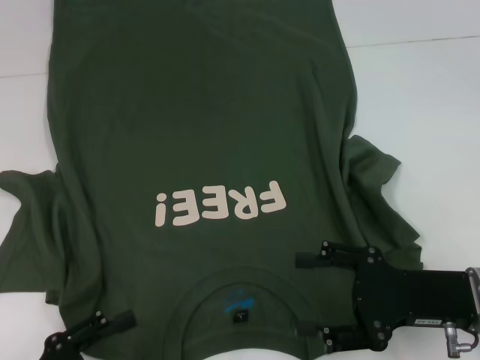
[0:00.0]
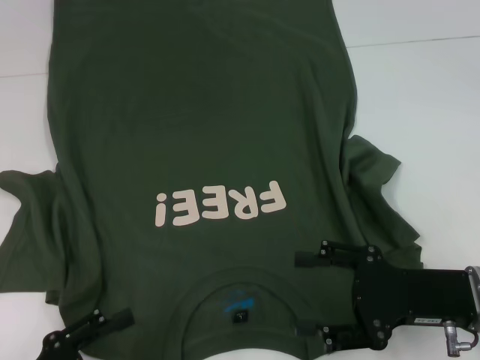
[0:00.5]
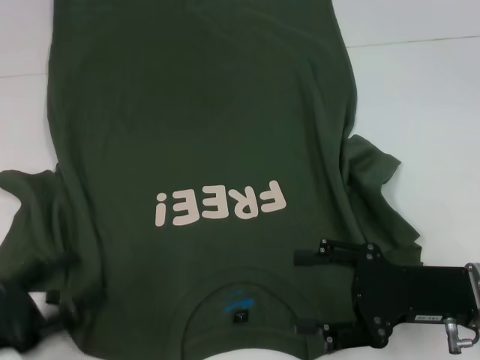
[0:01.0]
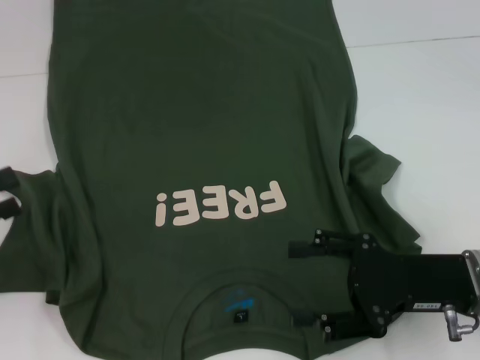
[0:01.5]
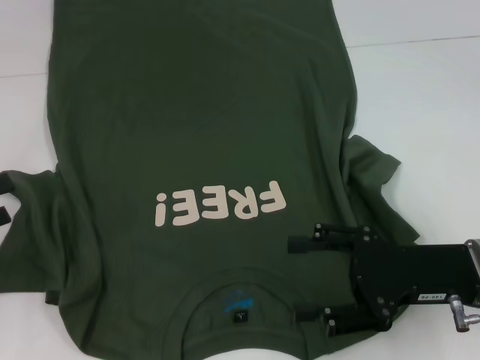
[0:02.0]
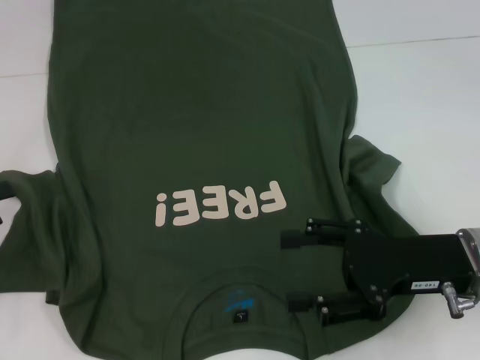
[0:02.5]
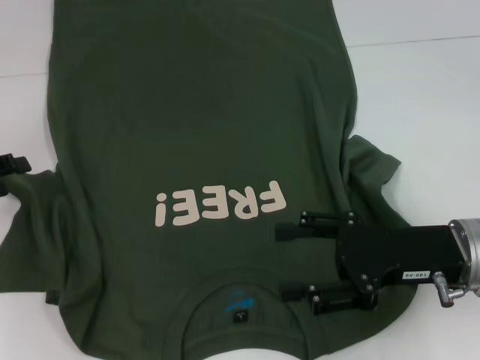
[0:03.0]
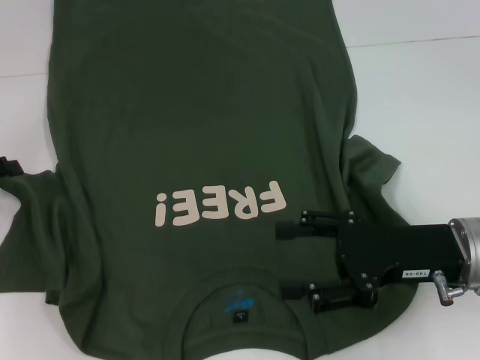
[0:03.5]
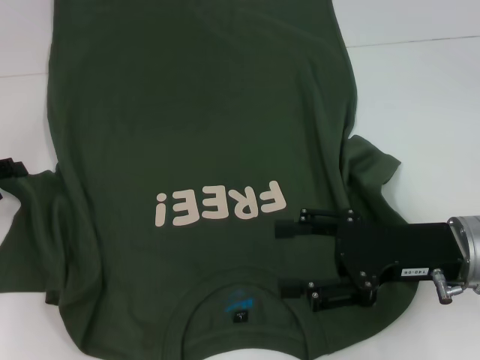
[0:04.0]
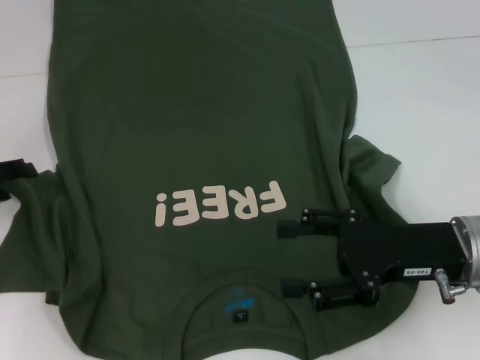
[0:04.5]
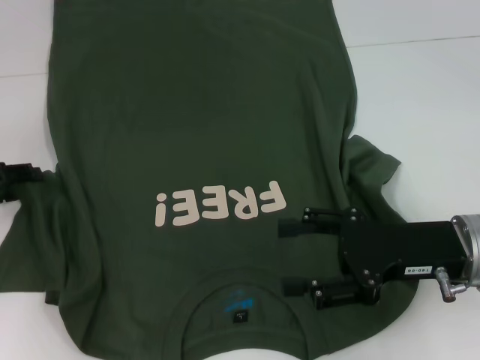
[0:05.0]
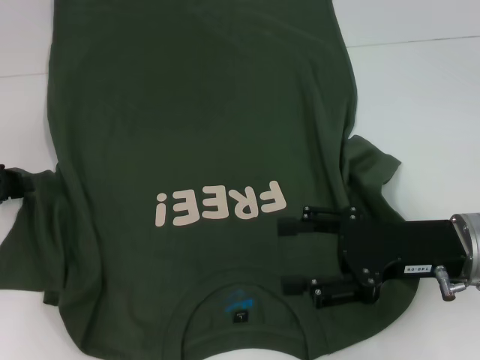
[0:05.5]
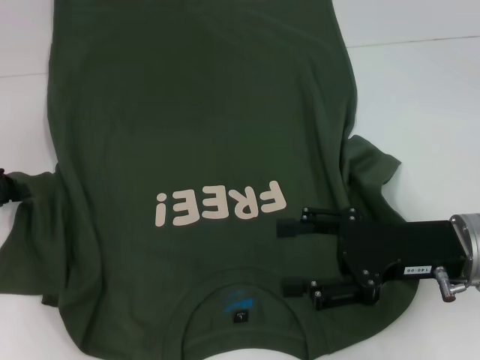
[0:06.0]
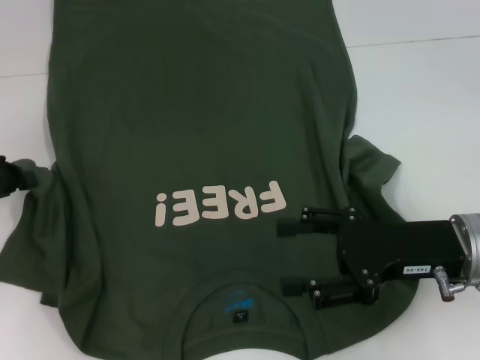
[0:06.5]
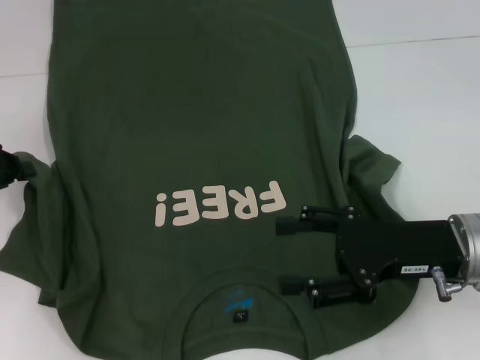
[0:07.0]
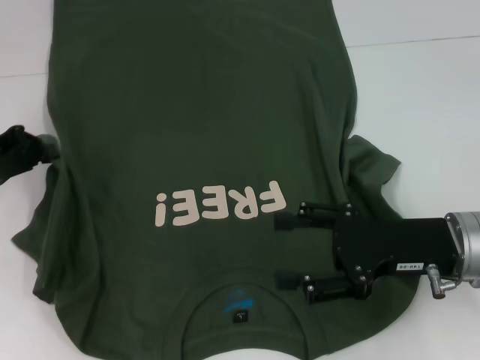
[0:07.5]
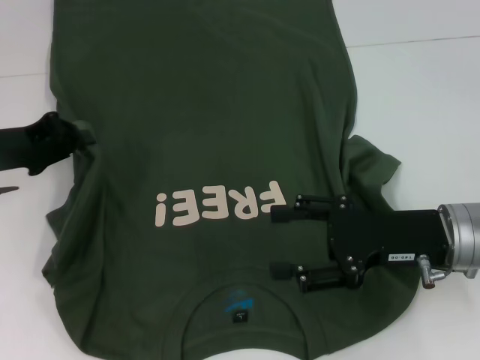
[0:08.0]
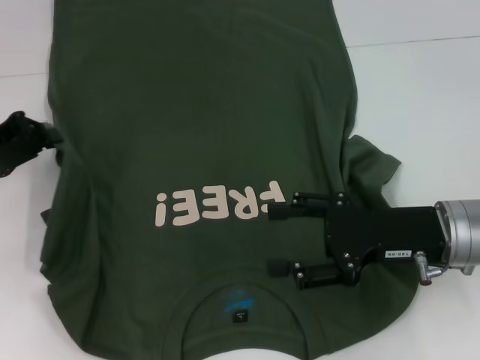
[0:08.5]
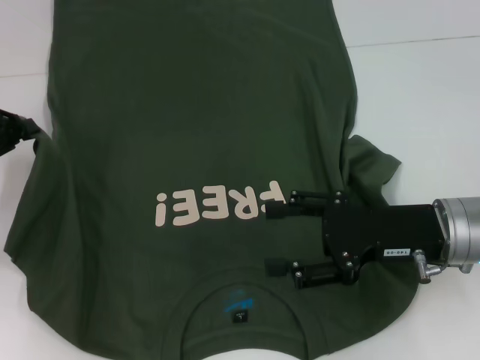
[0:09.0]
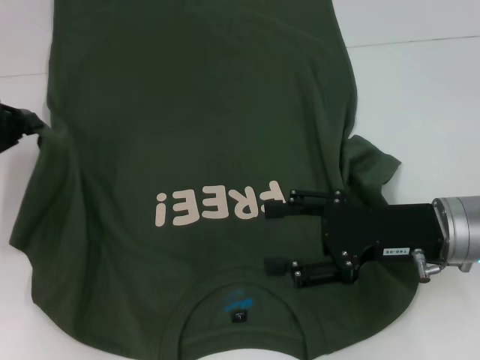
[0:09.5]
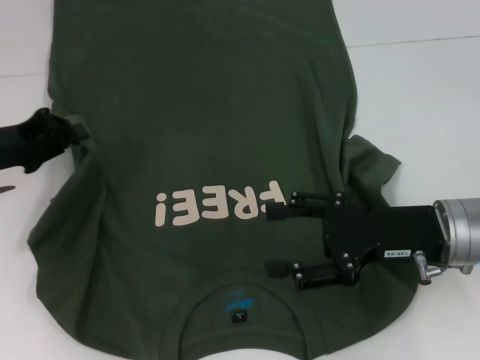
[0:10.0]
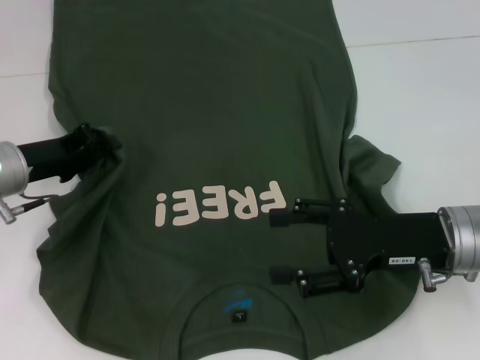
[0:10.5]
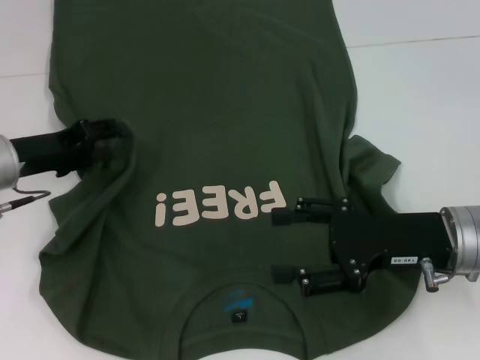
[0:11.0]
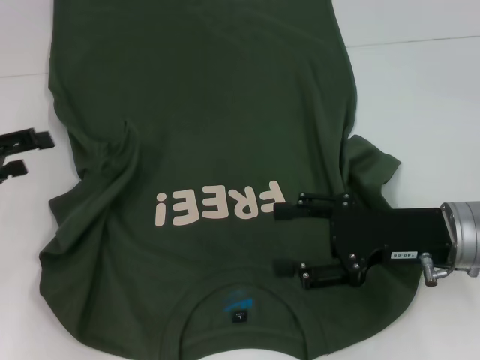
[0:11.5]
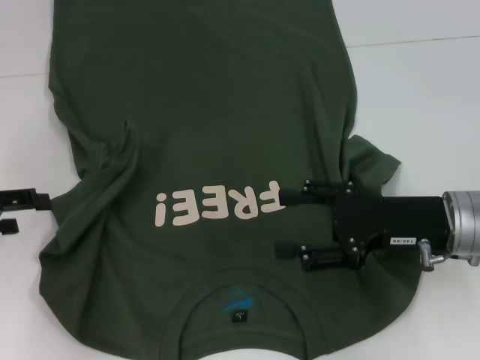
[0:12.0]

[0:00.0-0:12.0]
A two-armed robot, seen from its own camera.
0:00.0 to 0:02.0: The left gripper is displaced forward, to the left and upward by approximately 20 cm.
0:02.0 to 0:04.0: The left gripper moves forward, approximately 10 cm.
0:04.0 to 0:06.0: The left gripper closes.
0:06.0 to 0:08.0: The left gripper travels to the right by roughly 5 cm.
0:08.0 to 0:10.0: The grippers move only a little.
0:10.0 to 0:12.0: The left gripper heads to the left and backward, covering approximately 5 cm, and opens up.

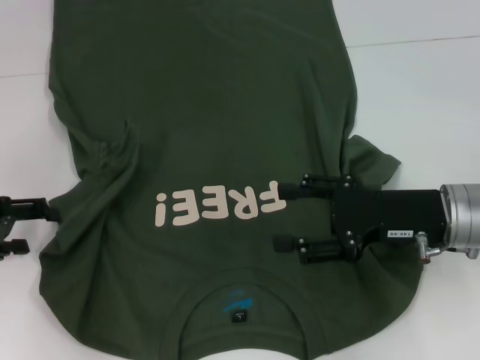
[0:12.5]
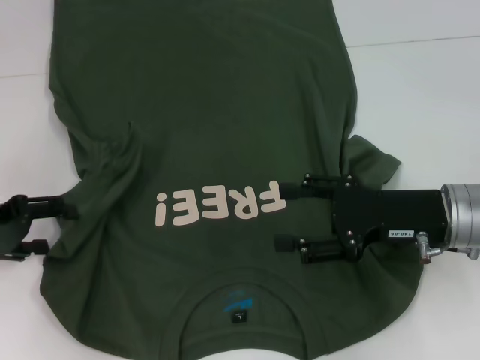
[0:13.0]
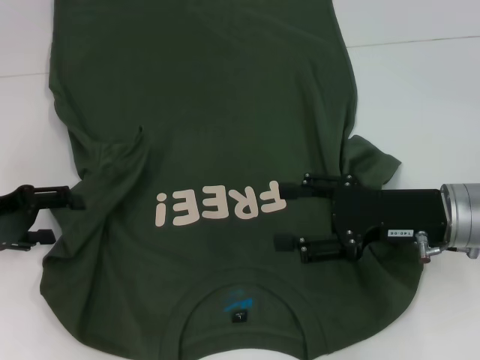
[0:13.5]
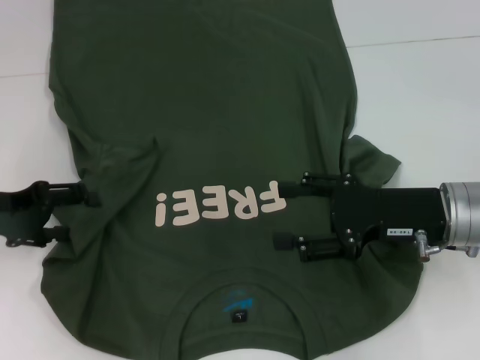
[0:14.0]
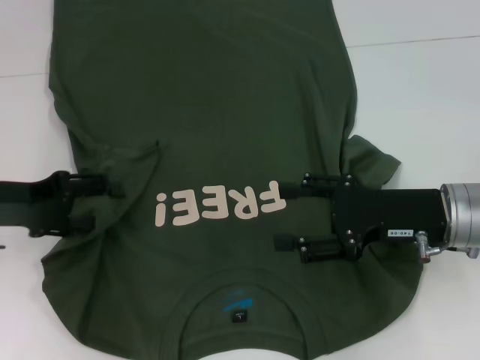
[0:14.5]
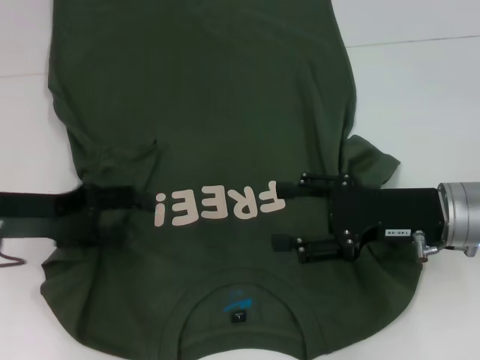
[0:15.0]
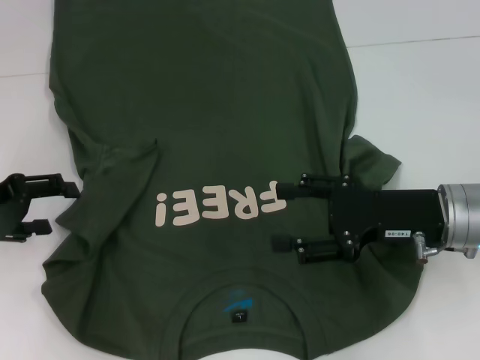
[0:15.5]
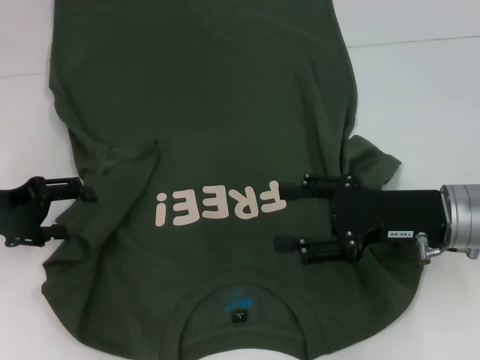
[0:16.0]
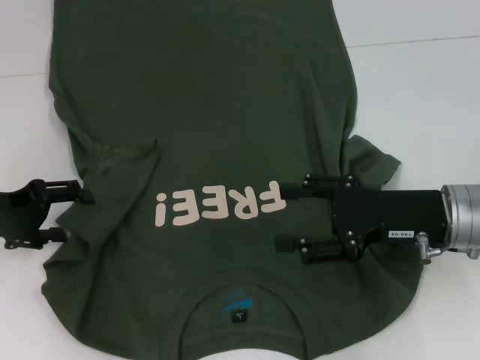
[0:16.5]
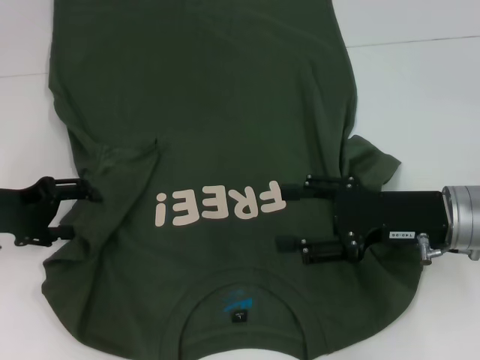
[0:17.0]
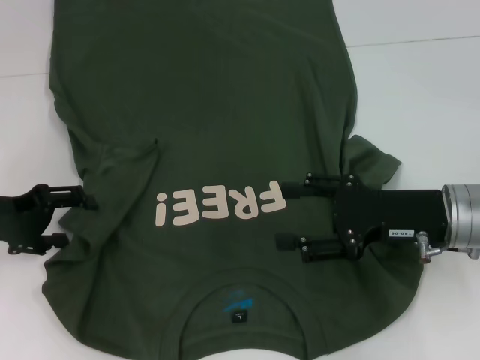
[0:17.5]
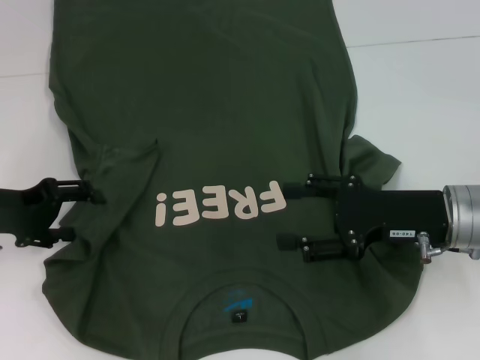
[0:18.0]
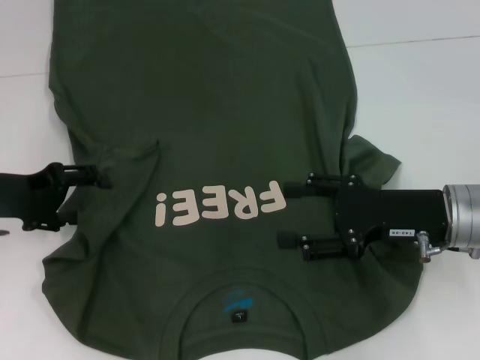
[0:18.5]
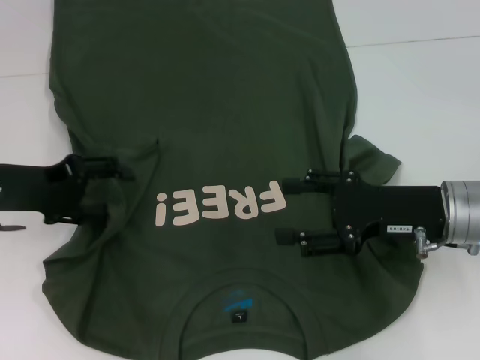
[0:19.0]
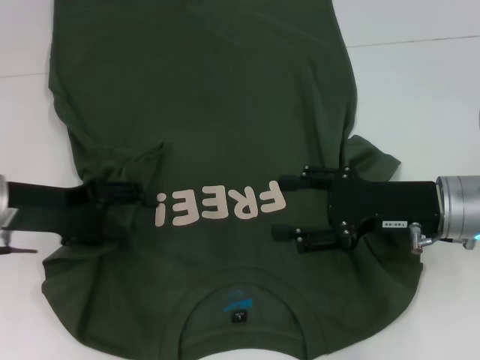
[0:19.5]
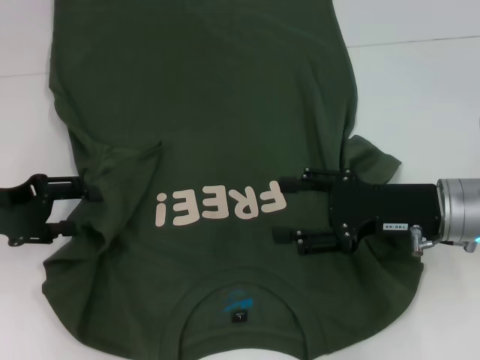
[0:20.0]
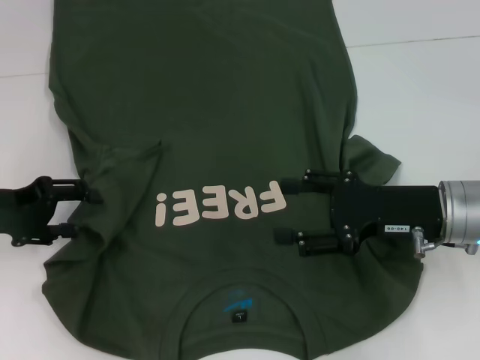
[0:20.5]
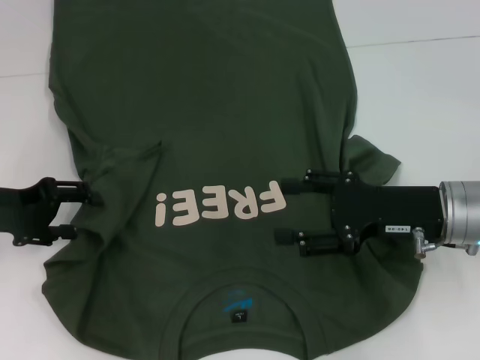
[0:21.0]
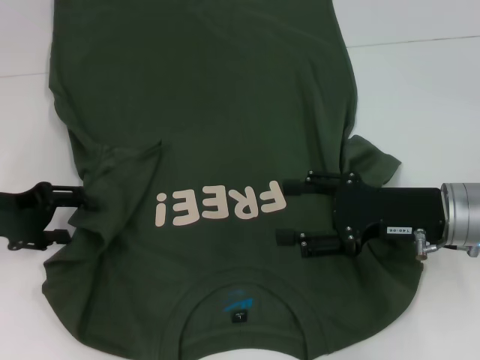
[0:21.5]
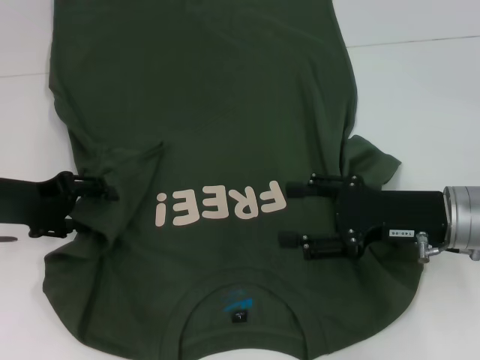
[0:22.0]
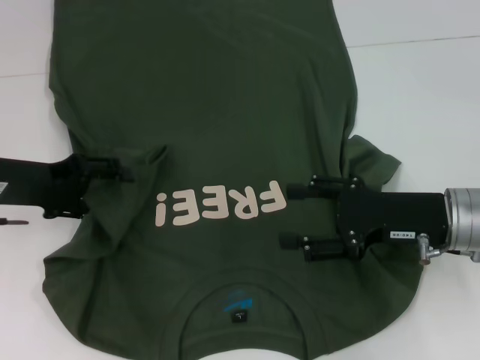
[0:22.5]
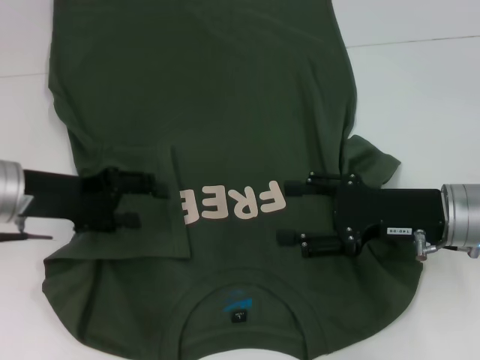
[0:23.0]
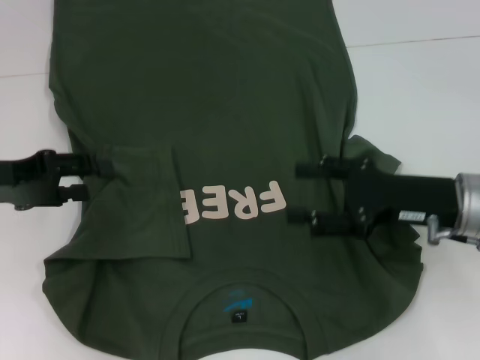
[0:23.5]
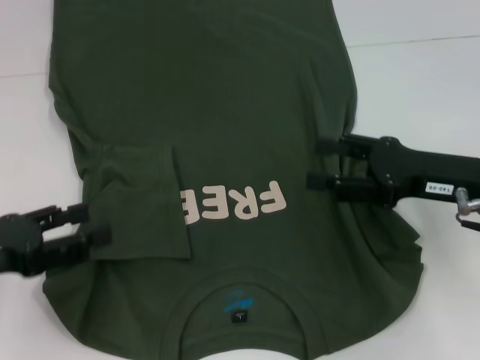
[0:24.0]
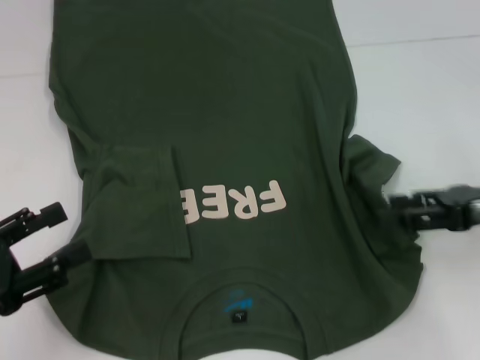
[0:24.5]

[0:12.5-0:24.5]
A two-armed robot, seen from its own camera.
Step, 0:12.5 to 0:22.5: Fold the bottom left sleeve with your left hand.
0:12.5 to 0:14.5: The left gripper travels to the right by about 5 cm.
0:14.5 to 0:22.5: The grippers make only small movements.
0:22.5 to 0:24.5: The right gripper moves to the right, about 10 cm, while the left gripper shifts approximately 15 cm backward.

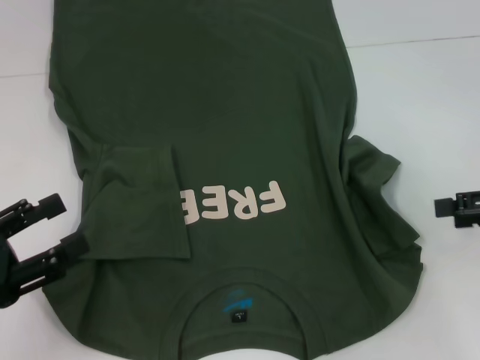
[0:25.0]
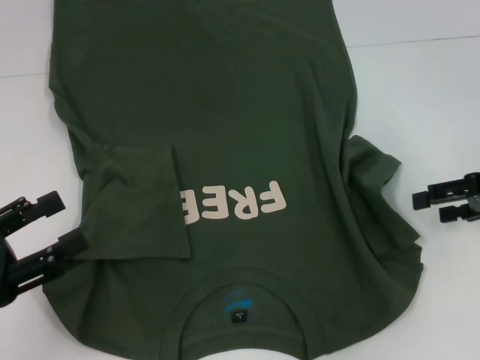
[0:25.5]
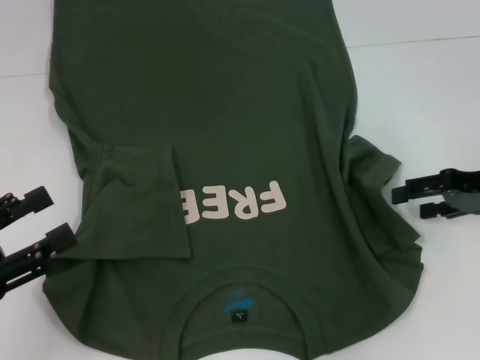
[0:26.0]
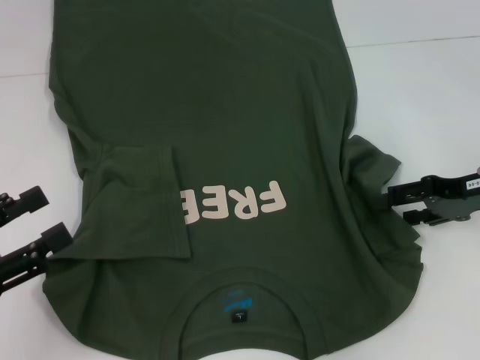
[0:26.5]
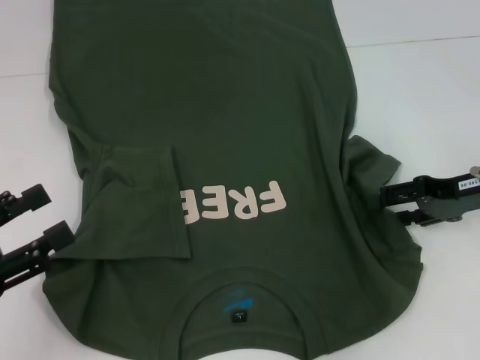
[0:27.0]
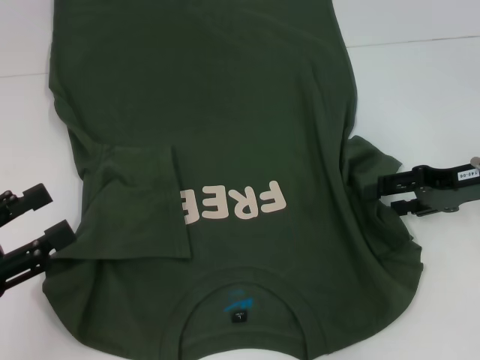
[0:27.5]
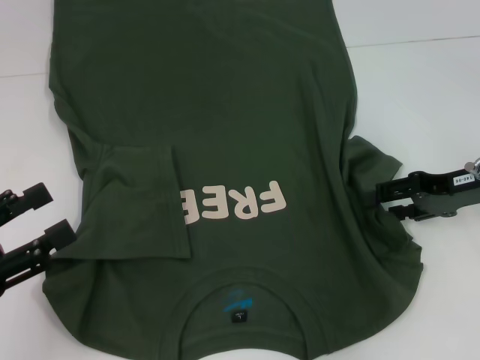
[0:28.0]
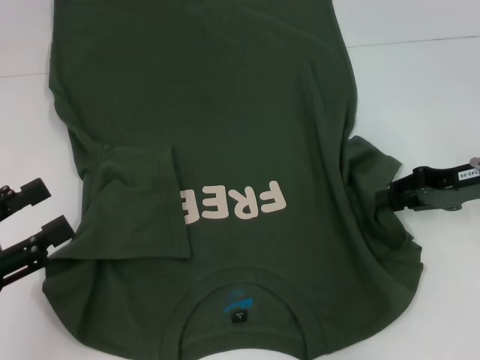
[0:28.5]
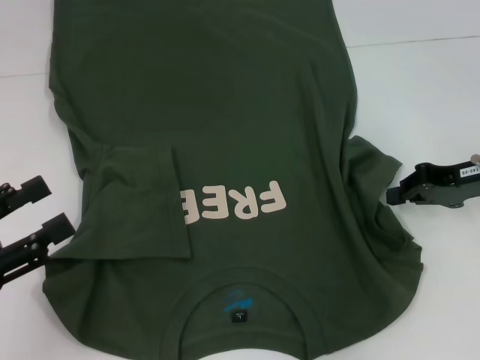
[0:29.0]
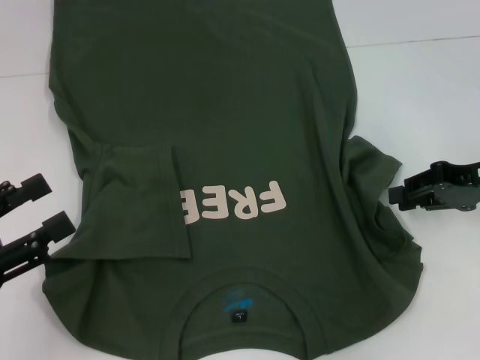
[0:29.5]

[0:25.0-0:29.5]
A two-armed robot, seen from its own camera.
0:25.0 to 0:27.0: The right gripper shifts some 10 cm to the left and forward.
0:27.0 to 0:29.5: The right gripper closes.
